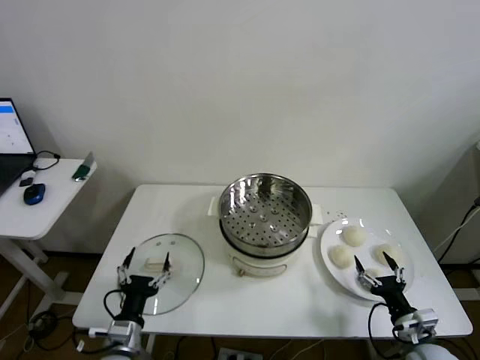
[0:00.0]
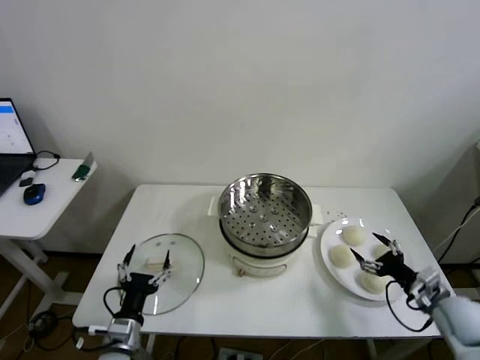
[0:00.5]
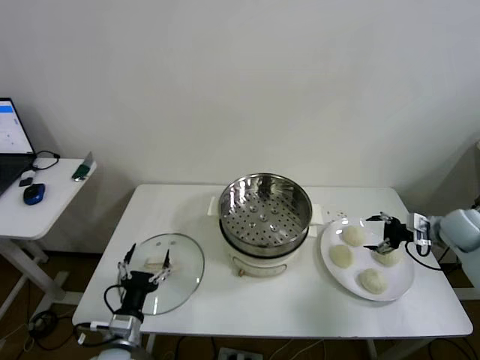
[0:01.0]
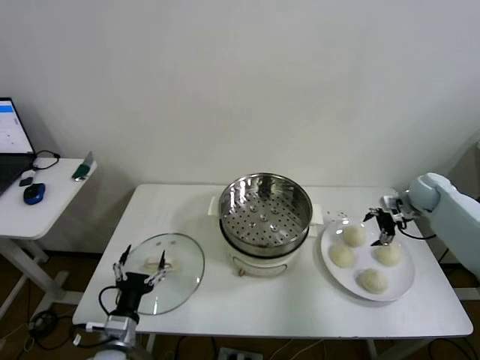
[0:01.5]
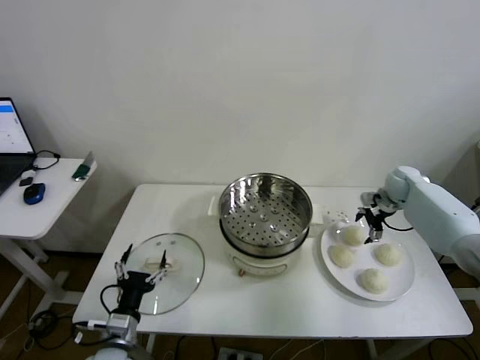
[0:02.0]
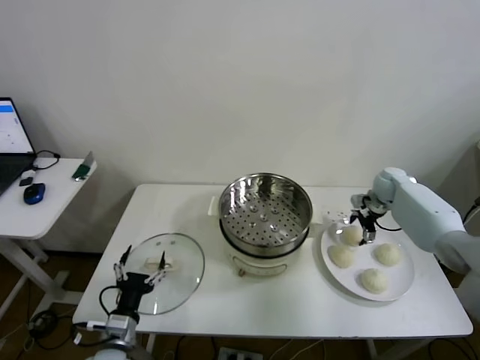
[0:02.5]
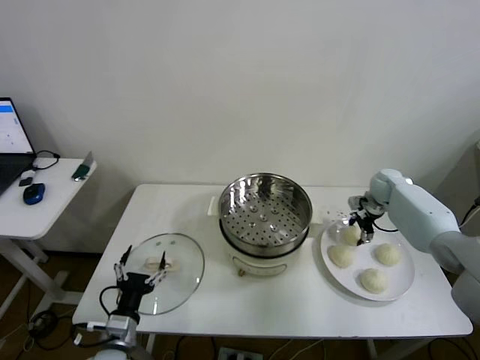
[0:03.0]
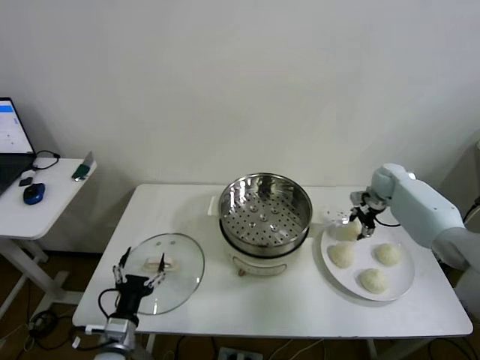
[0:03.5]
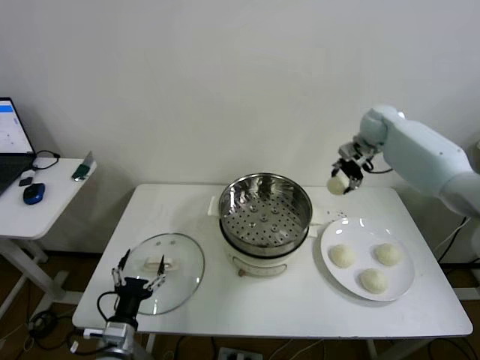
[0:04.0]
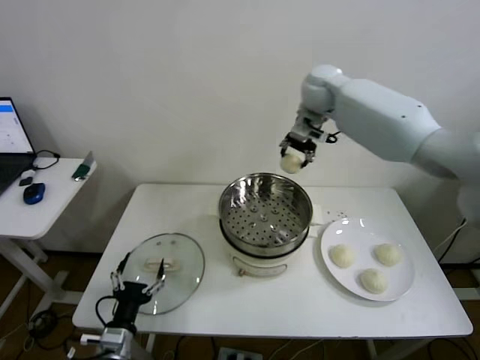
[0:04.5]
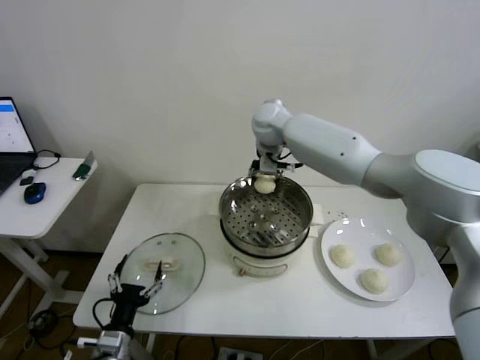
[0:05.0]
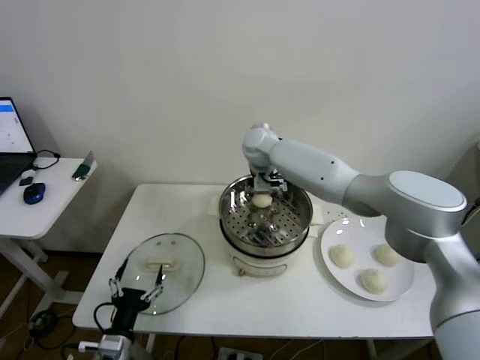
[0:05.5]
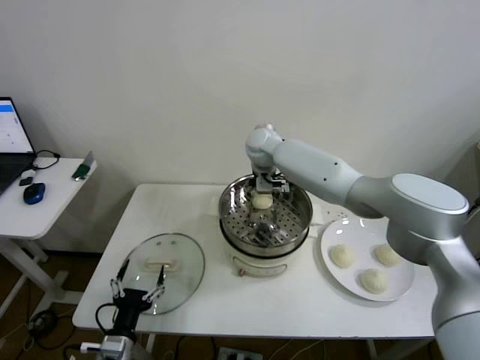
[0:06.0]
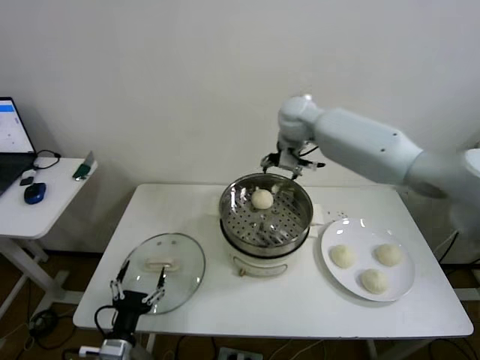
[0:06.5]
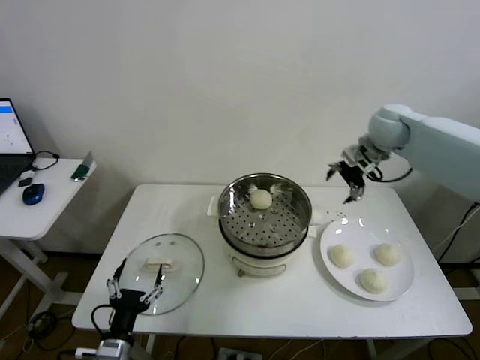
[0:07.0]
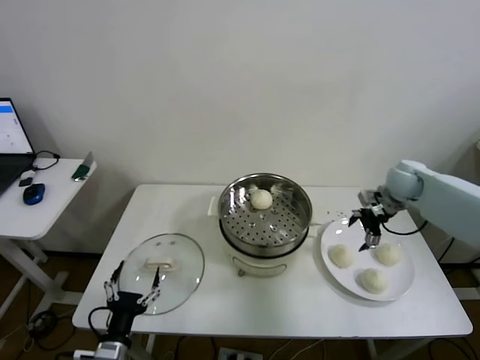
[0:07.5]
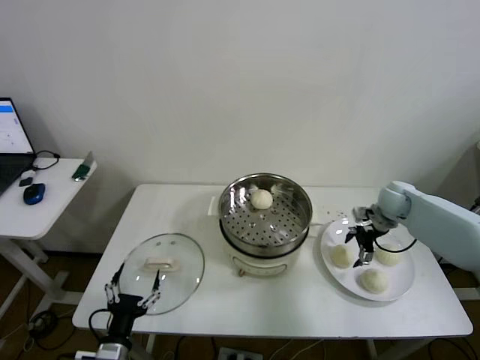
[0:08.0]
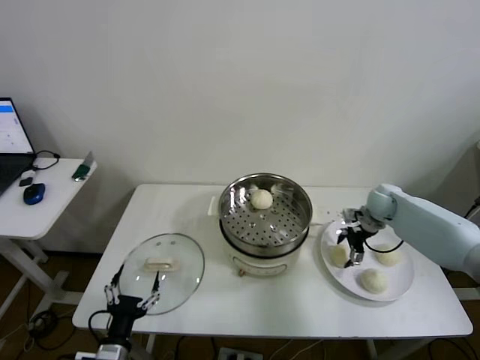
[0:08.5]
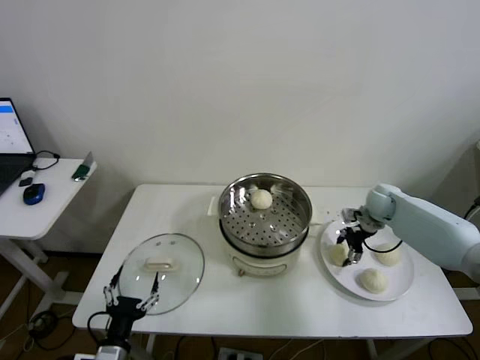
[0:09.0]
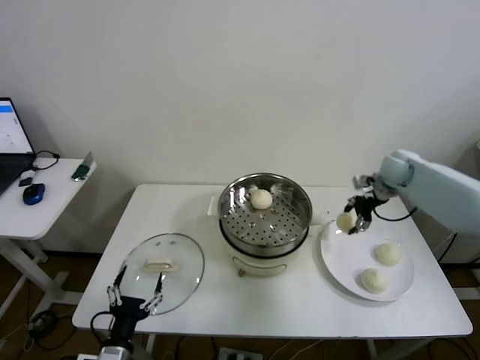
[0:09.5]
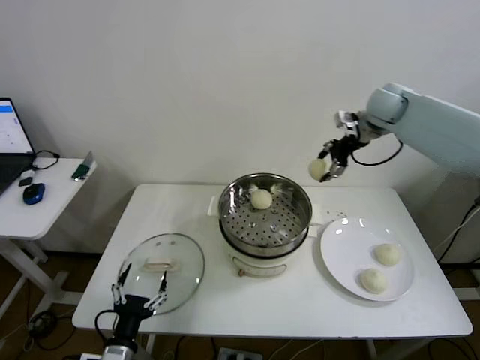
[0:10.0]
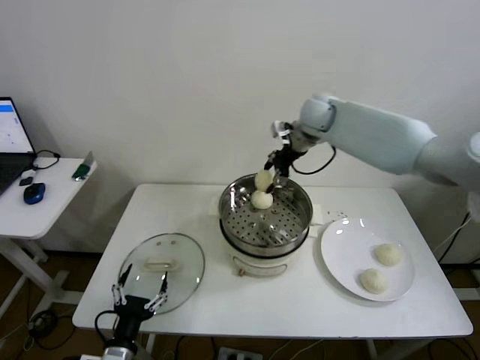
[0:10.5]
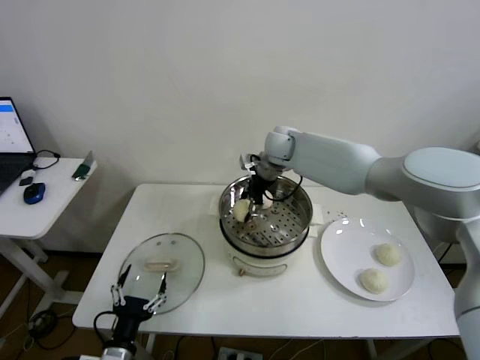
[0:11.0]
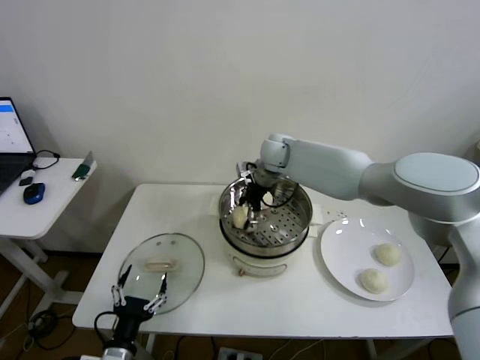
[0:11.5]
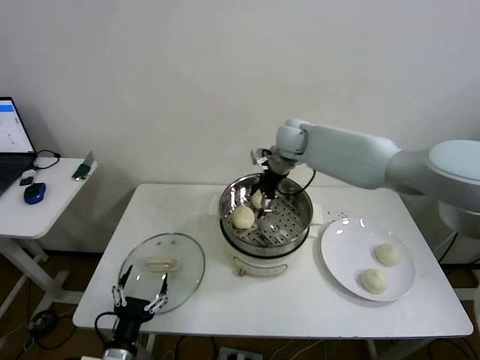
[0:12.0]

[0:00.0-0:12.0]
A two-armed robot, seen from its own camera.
Step, 0:00.0 to 0:03.0: Grasp the baozi in the plate with right gripper.
Step, 0:03.5 to 0:06.0: Place the baozi on the steamer with right gripper.
Step, 0:06.5 to 0:09.0: Grasp the baozi in the plate with right gripper.
Step, 0:09.5 to 0:11.5: Place the baozi on the steamer with right gripper.
0:02.0 to 0:04.0: The right gripper heads upward and to the left, covering some 25 cm, and closes.
0:04.0 to 0:06.0: The right gripper is displaced to the left by roughly 25 cm, and opens.
0:06.0 to 0:08.0: The right gripper moves to the right and downward, about 35 cm.
0:08.0 to 0:10.0: The right gripper shifts about 25 cm upward, and closes up.
0:10.0 to 0:12.0: The right gripper shifts some 20 cm to the left and downward, and opens up.

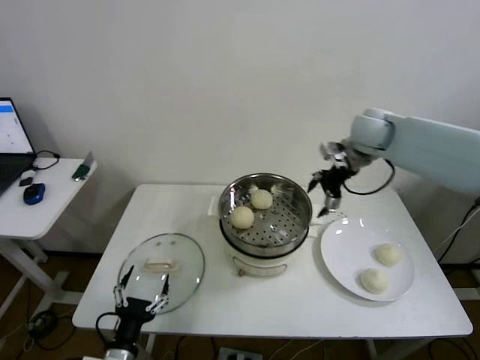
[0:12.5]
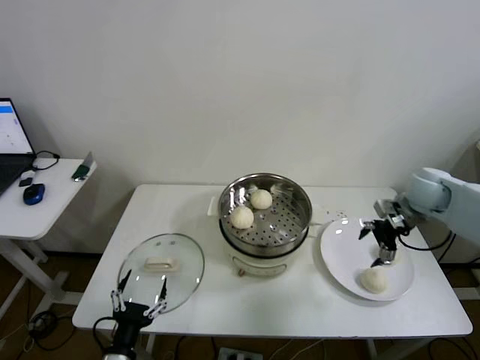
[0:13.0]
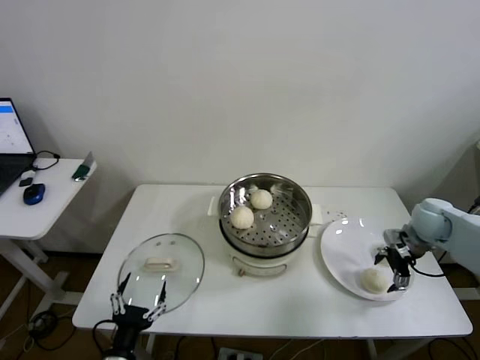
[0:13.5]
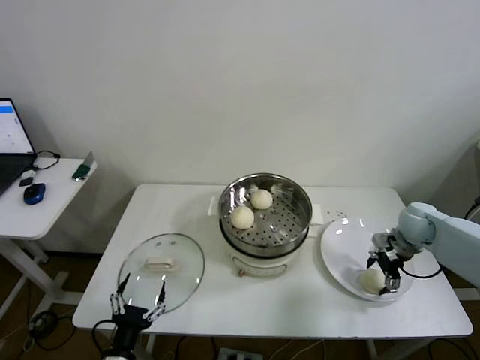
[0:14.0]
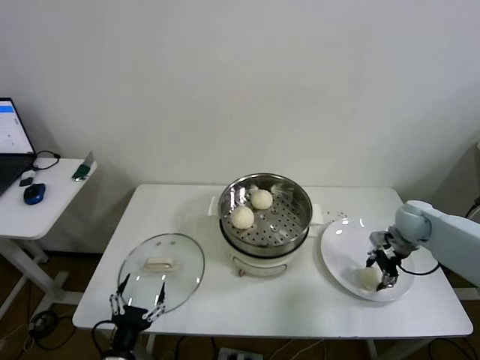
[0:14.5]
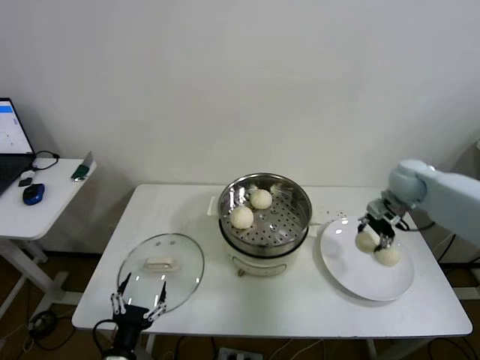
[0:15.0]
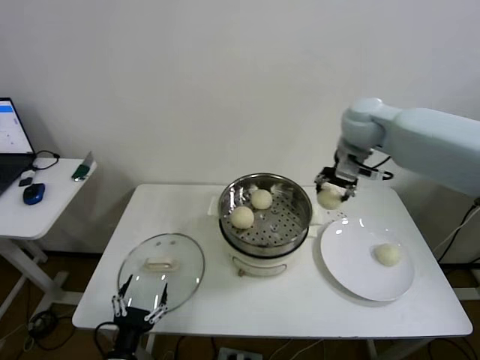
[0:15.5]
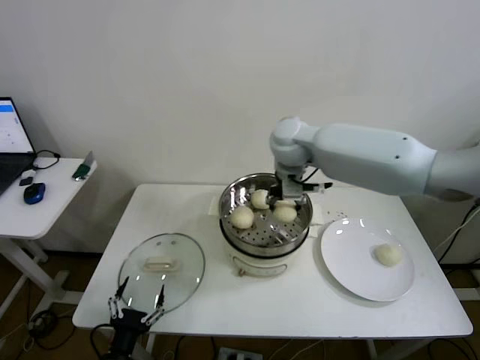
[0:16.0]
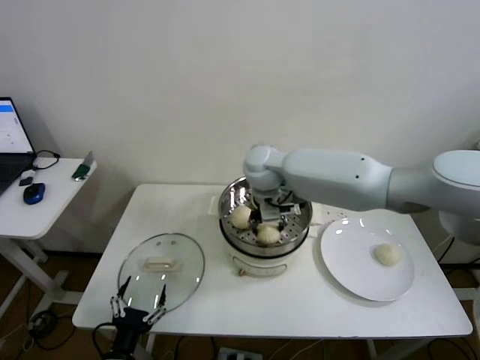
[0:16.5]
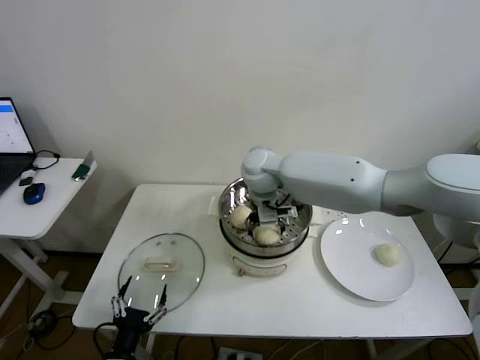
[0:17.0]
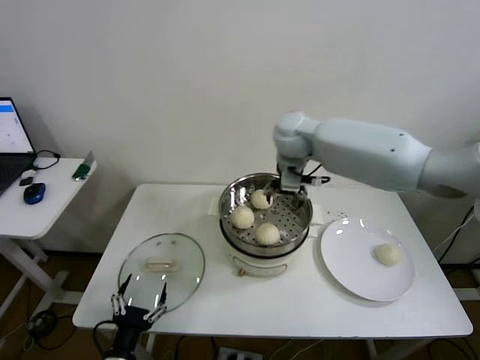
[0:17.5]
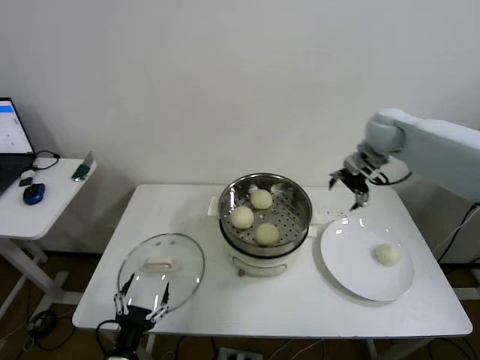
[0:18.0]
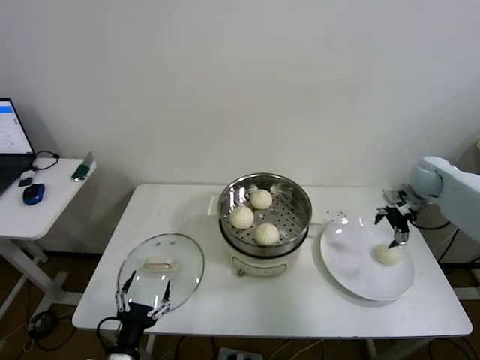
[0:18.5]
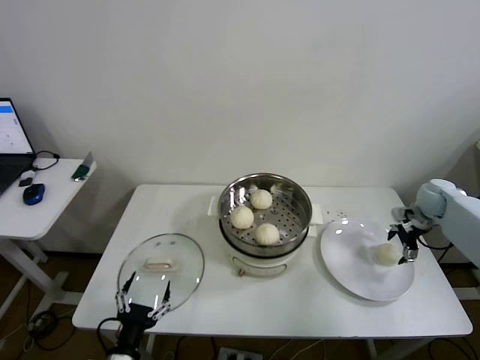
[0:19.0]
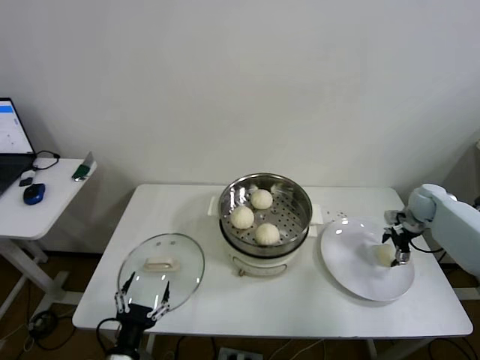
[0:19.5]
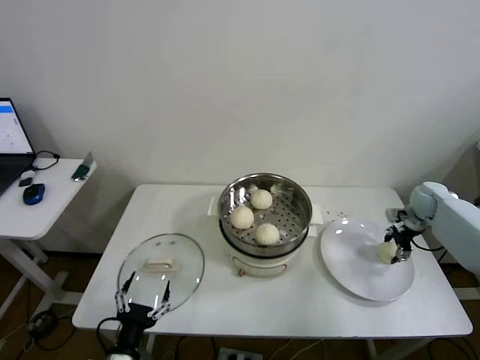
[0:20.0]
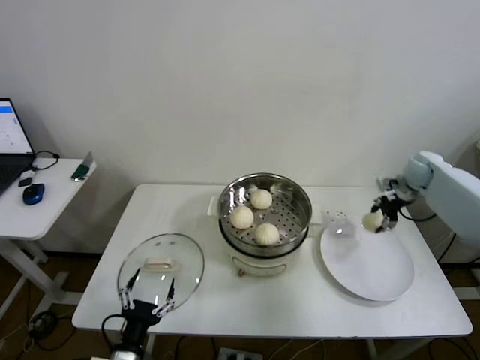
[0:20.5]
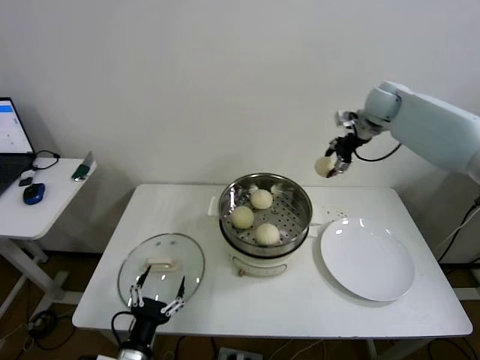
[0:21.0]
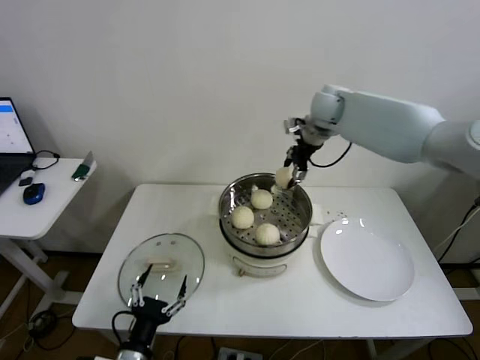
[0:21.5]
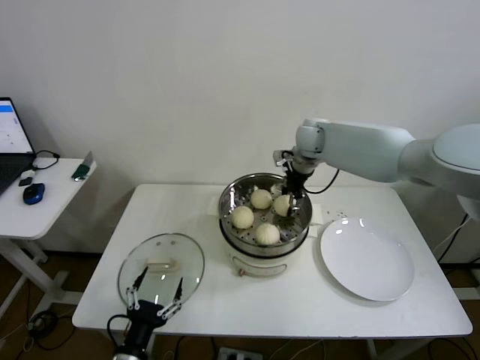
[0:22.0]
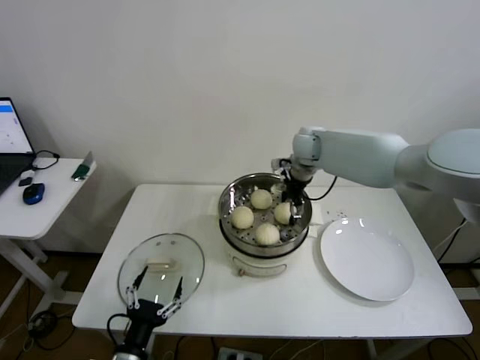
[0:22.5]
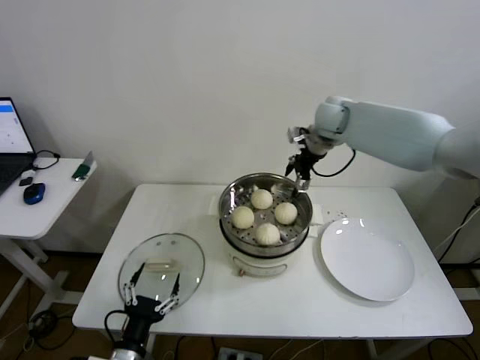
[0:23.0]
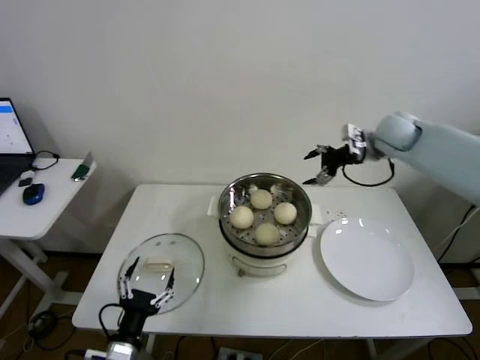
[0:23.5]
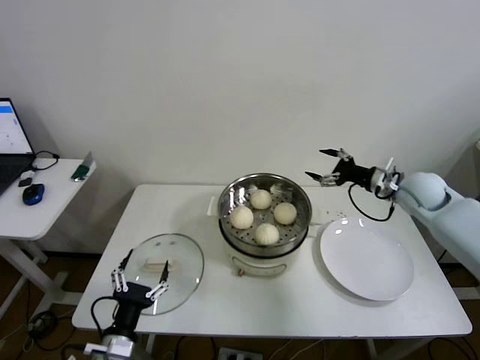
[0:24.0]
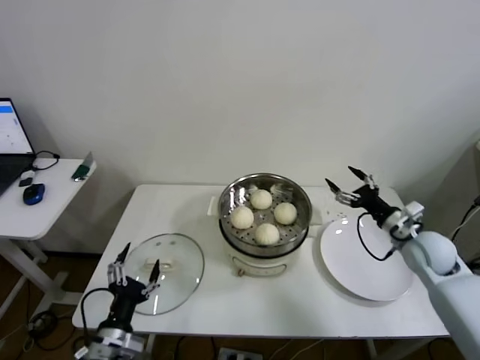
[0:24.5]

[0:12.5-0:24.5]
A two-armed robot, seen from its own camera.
Step, 0:12.5 to 0:14.5: Grasp the baozi in the plate with right gripper.
Step, 0:15.0 to 0:17.0: Place the baozi on the steamer with right gripper.
Step, 0:17.5 to 0:19.5: Grasp the baozi in the plate with right gripper.
Step, 0:20.0 to 0:22.5: Place the baozi on the steamer with right gripper.
0:12.5 to 0:14.5: The right gripper heads downward and to the right, covering approximately 25 cm, and closes its fingers.
0:14.5 to 0:16.5: The right gripper heads to the left, covering about 40 cm.
0:16.5 to 0:18.5: The right gripper goes roughly 40 cm to the right, and opens.
0:18.5 to 0:20.5: The right gripper goes downward and returns, about 10 cm each way, and closes.
0:20.5 to 0:22.5: The right gripper moves to the left, about 30 cm, and opens up.
0:22.5 to 0:24.5: The right gripper travels to the right, backward and downward by about 35 cm.

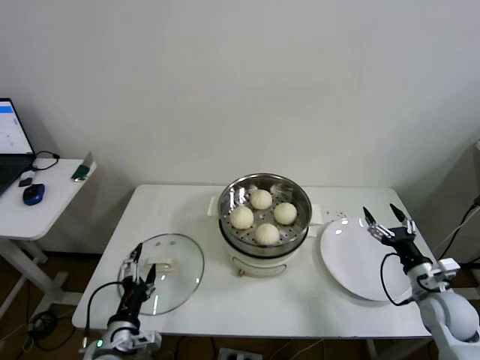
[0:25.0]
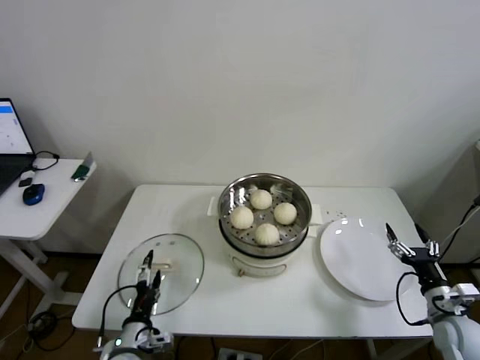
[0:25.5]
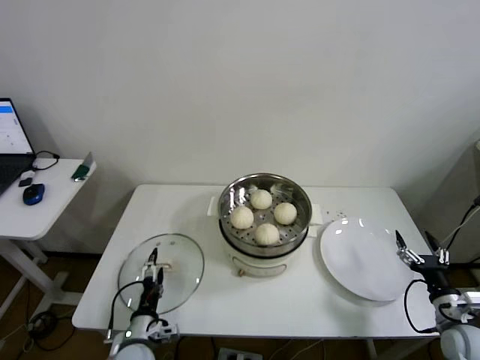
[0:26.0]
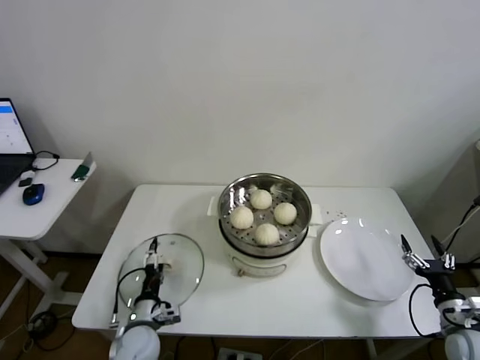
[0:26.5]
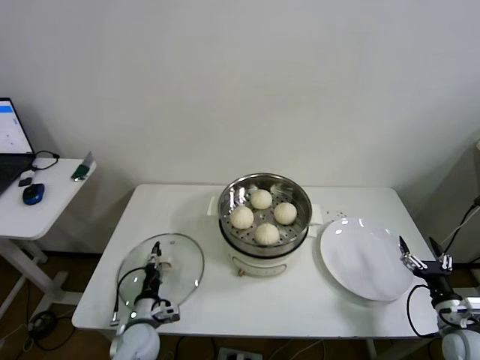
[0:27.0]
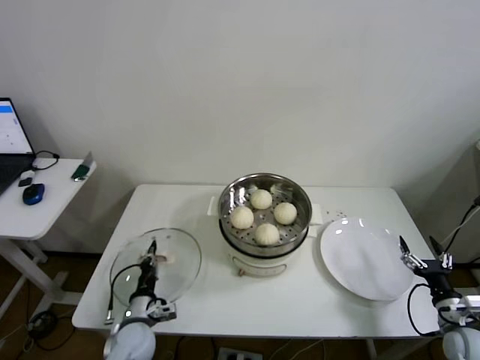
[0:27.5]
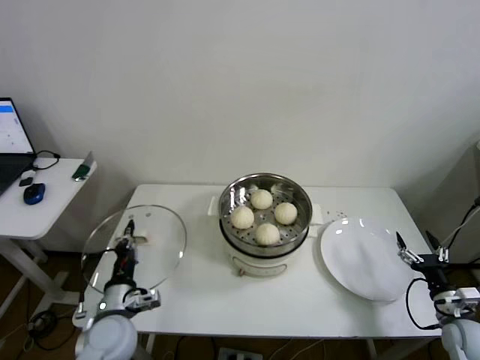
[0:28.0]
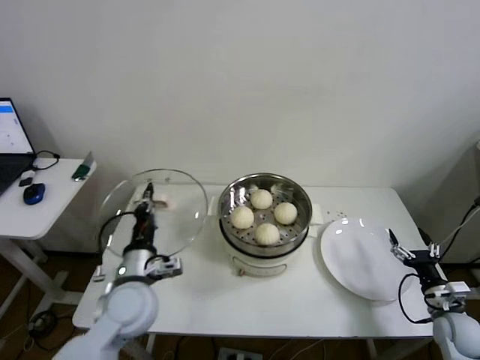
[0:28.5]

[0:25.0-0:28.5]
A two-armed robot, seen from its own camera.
Step, 0:25.0 to 0:27.0: Grasp the pot lid with left gripper.
0:25.0 to 0:27.0: The right gripper moves backward and downward, roughly 10 cm; the left gripper travels downward and forward by about 15 cm, and closes its fingers.
0:27.0 to 0:28.5: The left gripper travels upward by roughly 20 cm, and closes its fingers.
